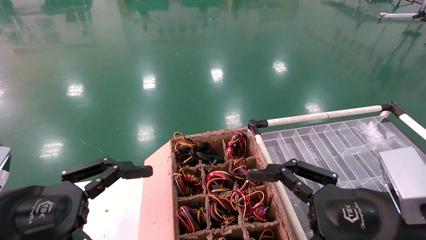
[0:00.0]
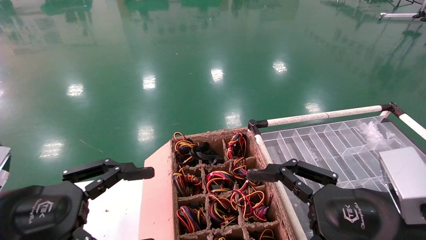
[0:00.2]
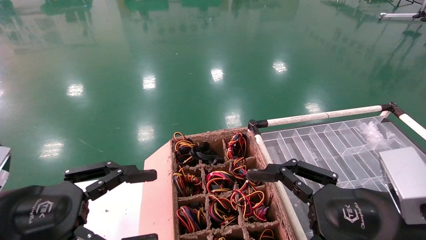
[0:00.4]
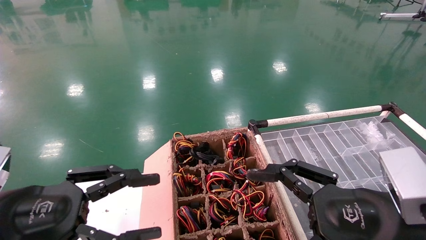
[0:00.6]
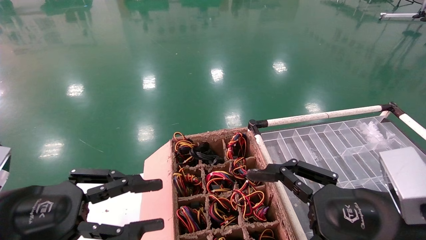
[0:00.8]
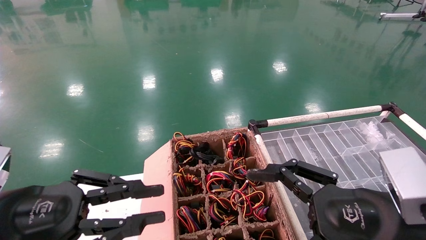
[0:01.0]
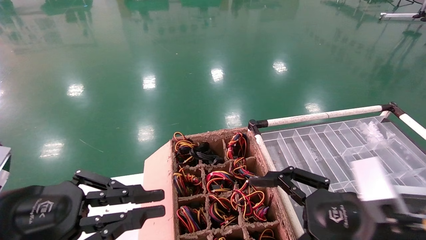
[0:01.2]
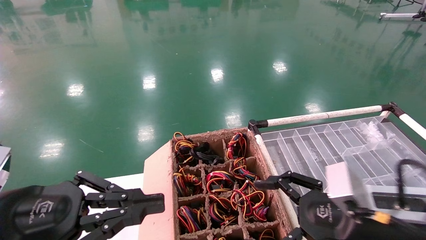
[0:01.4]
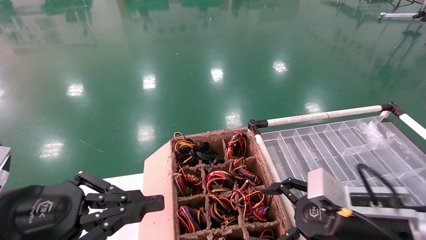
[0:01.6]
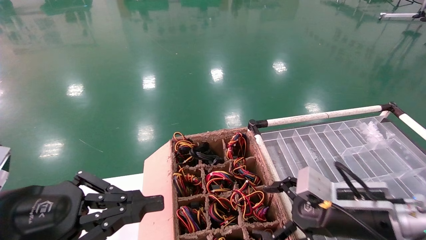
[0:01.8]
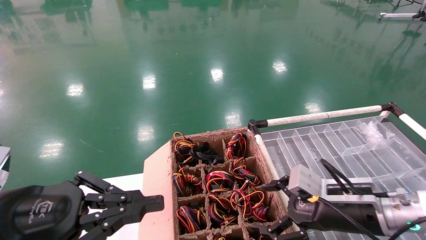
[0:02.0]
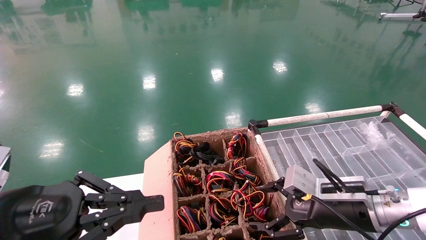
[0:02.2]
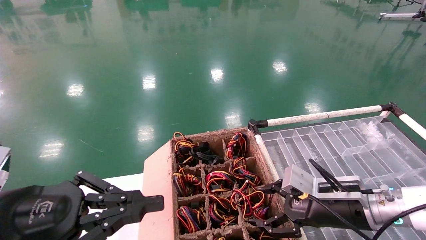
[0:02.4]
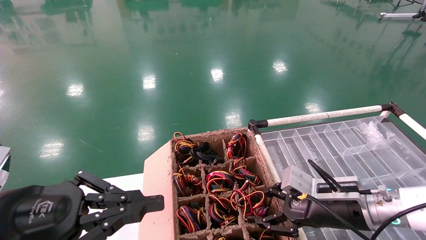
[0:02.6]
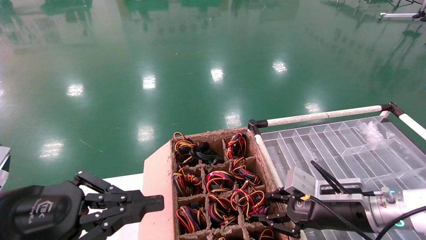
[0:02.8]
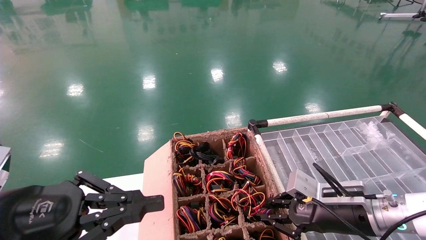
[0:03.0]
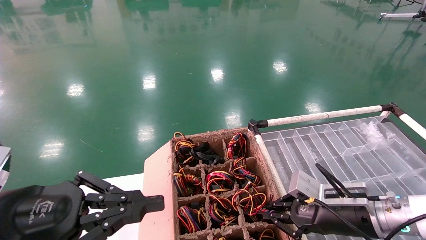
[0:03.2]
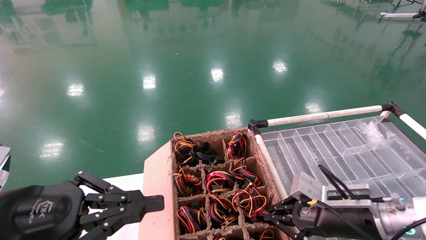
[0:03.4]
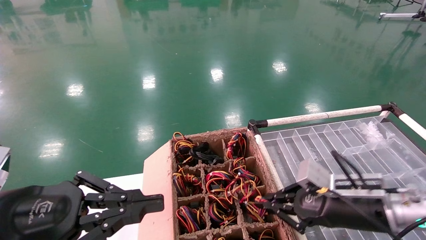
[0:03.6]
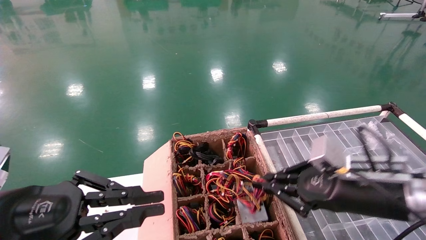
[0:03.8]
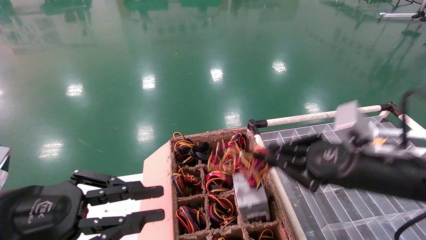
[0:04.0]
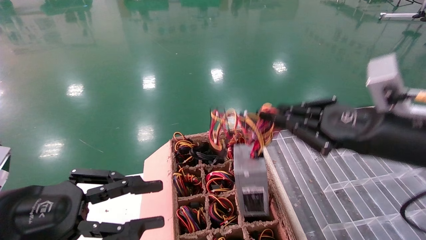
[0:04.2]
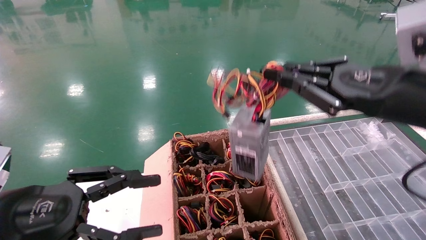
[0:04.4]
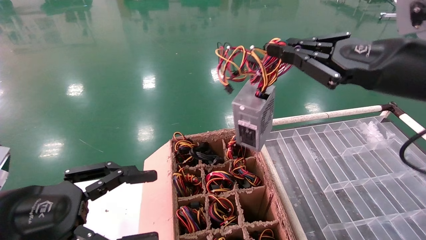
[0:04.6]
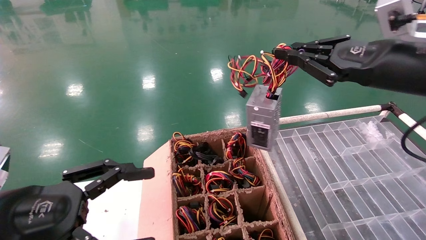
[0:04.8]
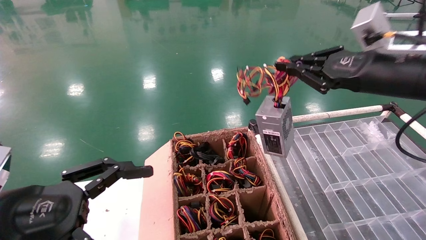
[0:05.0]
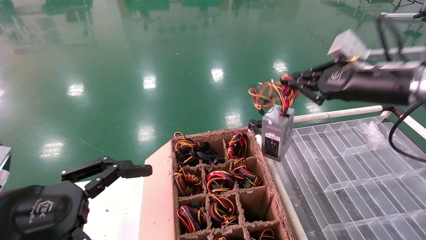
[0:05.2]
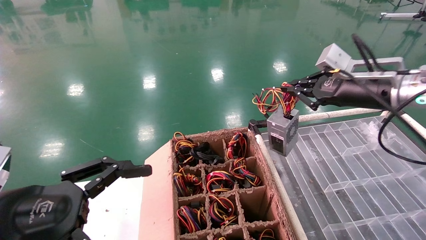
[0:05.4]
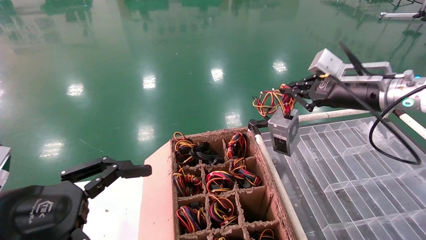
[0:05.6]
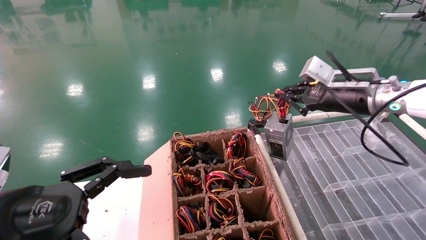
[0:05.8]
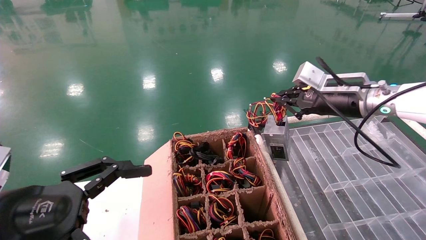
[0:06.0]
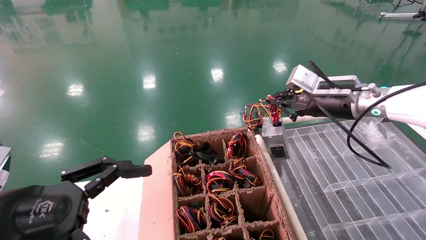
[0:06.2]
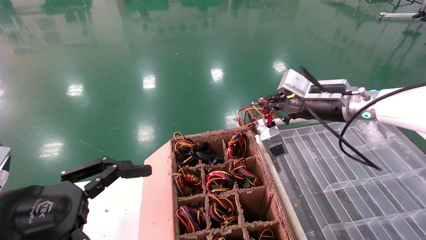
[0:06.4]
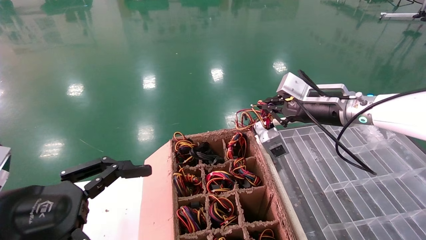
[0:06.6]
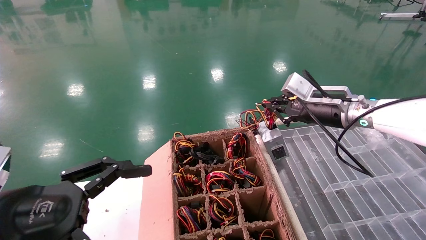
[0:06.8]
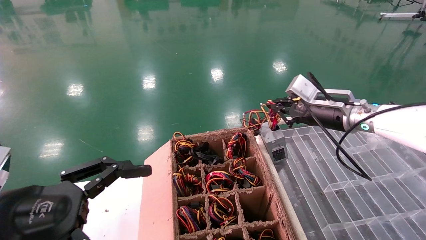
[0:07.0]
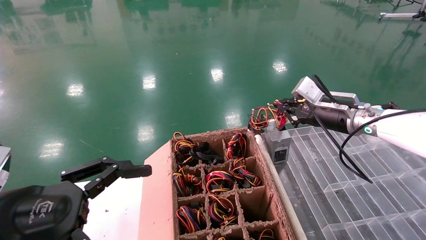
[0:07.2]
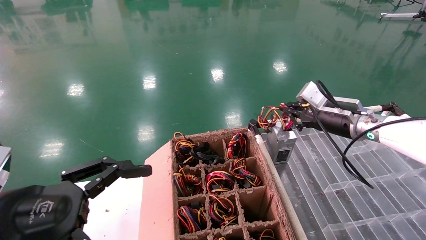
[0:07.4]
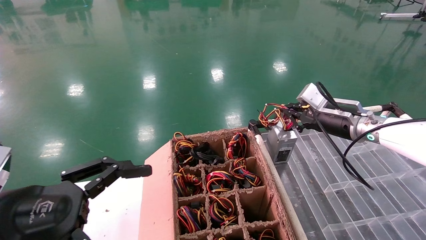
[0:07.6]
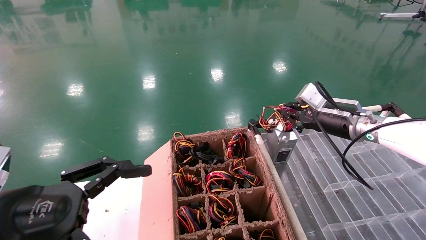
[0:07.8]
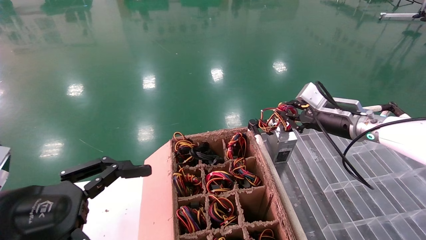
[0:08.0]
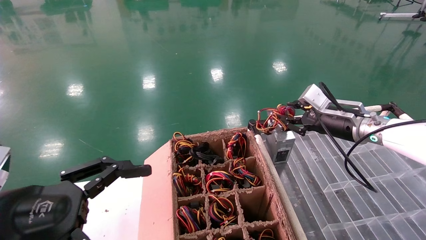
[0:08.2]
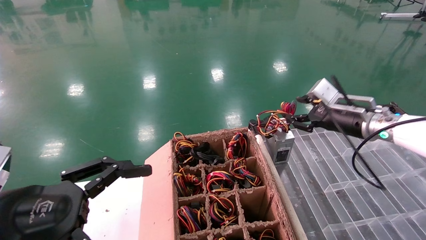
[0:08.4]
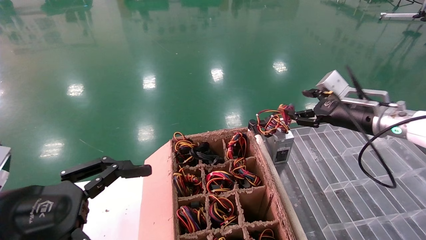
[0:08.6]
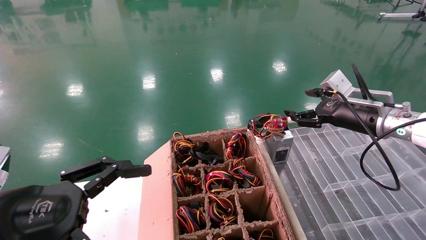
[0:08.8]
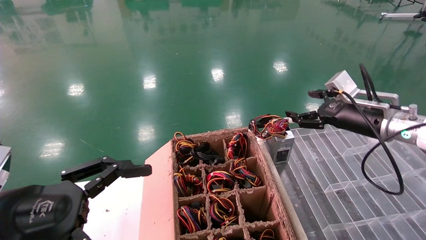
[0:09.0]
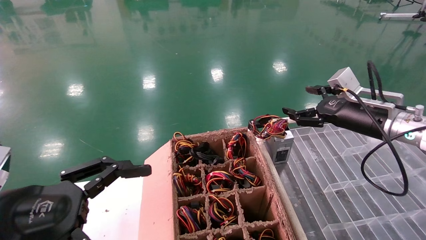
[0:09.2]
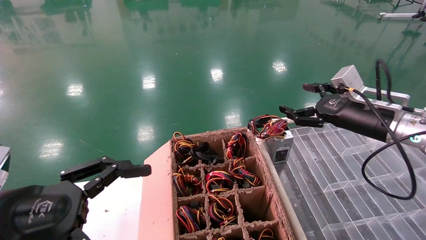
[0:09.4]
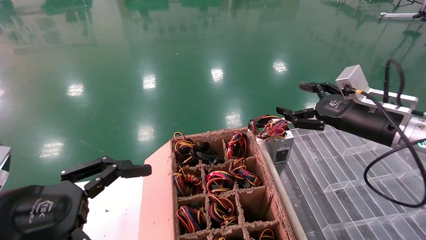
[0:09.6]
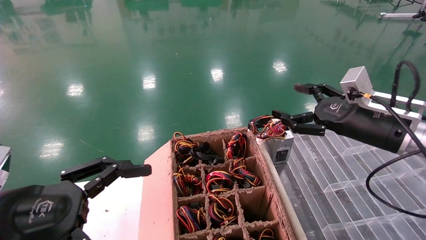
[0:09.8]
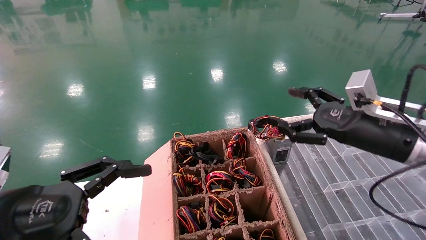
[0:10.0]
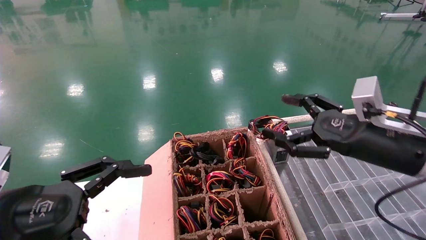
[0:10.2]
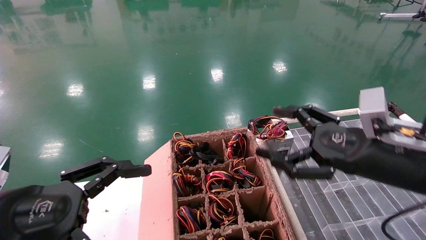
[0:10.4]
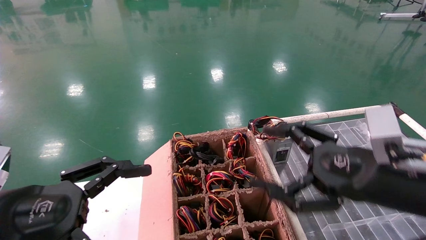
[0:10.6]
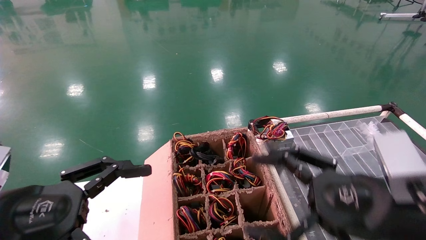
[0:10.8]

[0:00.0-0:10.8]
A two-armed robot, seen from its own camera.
Step, 0:01.8 to 0:03.2: Grab and lift the power supply from the large box.
Step, 0:03.4 to 0:07.8: Place the power supply on the operating table.
0:00.0 to 0:01.6: The right gripper is displaced forward by roughly 5 cm, while the left gripper closes up.
0:01.6 to 0:03.0: The right gripper moves forward, roughly 5 cm, and closes its fingers.
0:03.0 to 0:04.6: The left gripper opens. The right gripper is displaced upward by approximately 20 cm.
0:04.6 to 0:06.2: The left gripper opens, while the right gripper moves forward, about 15 cm.
0:06.2 to 0:07.8: The right gripper heads downward, covering approximately 5 cm.
0:07.8 to 0:09.2: The right gripper moves some 5 cm, and opens.
0:09.2 to 0:10.8: The right gripper shifts some 20 cm backward and to the left.
